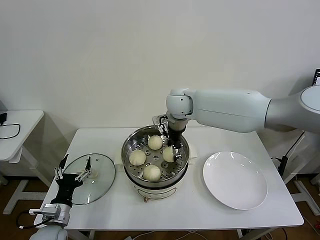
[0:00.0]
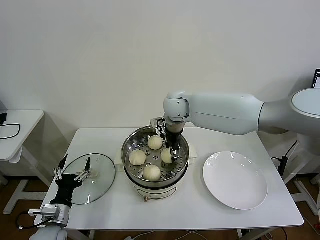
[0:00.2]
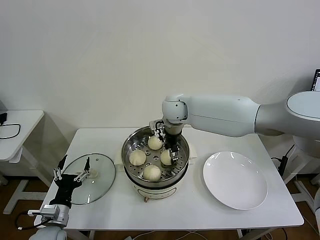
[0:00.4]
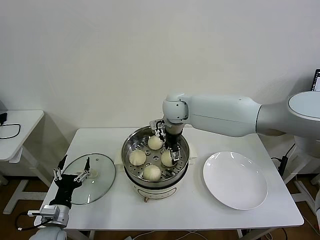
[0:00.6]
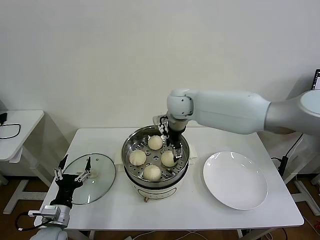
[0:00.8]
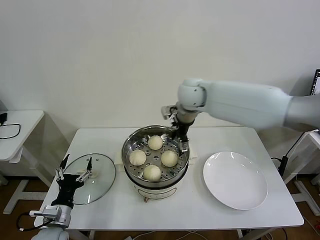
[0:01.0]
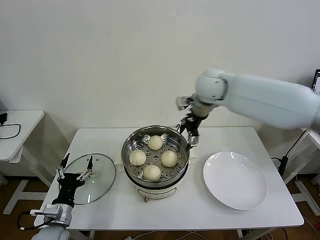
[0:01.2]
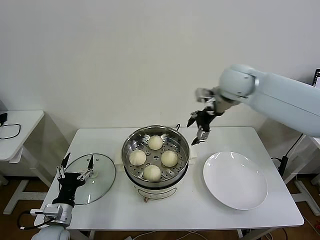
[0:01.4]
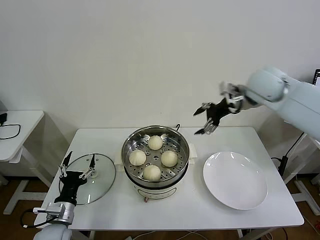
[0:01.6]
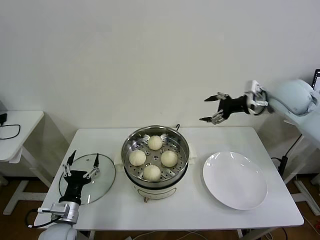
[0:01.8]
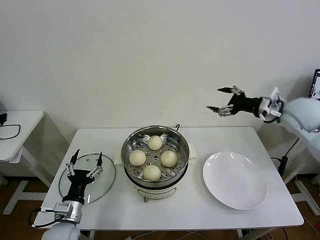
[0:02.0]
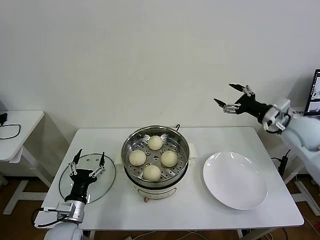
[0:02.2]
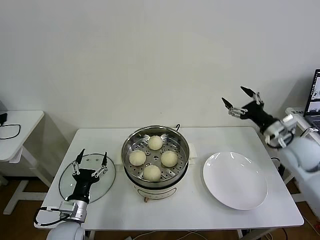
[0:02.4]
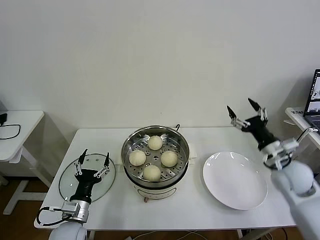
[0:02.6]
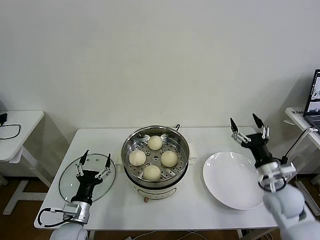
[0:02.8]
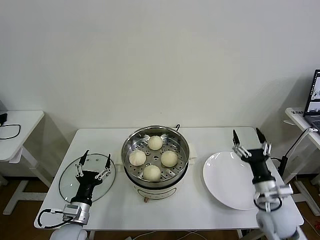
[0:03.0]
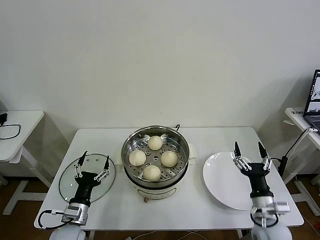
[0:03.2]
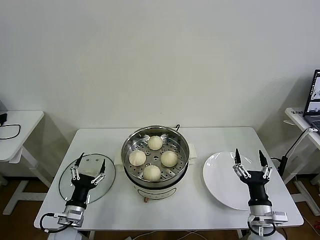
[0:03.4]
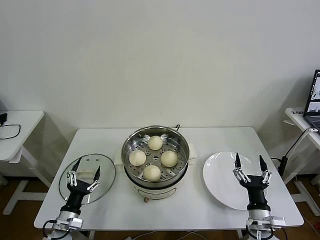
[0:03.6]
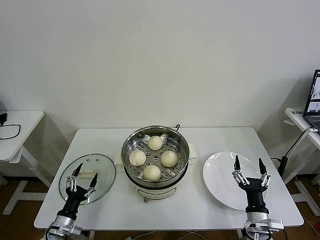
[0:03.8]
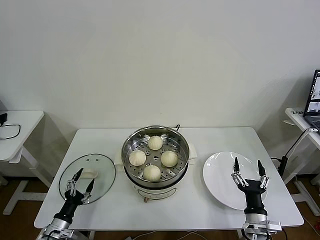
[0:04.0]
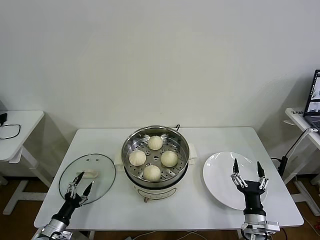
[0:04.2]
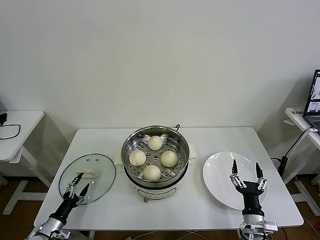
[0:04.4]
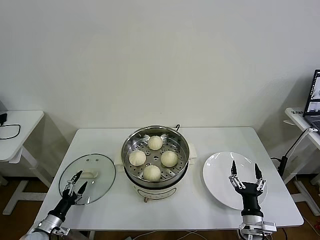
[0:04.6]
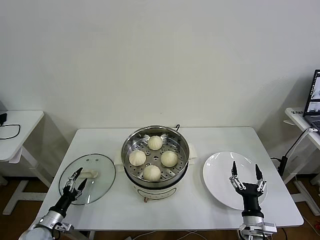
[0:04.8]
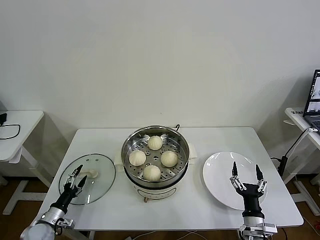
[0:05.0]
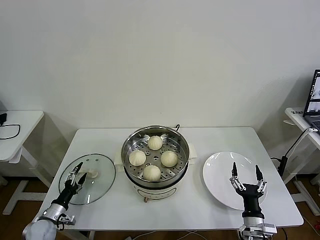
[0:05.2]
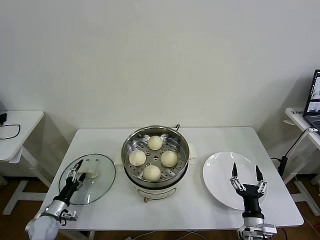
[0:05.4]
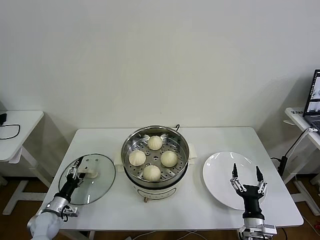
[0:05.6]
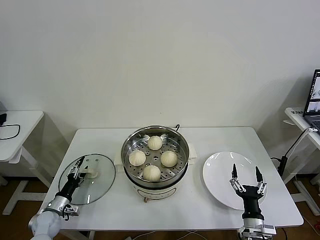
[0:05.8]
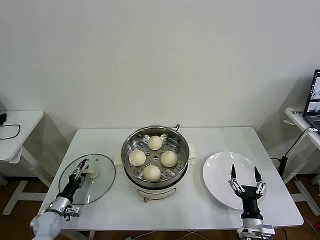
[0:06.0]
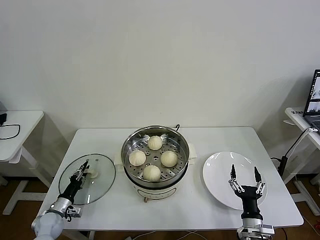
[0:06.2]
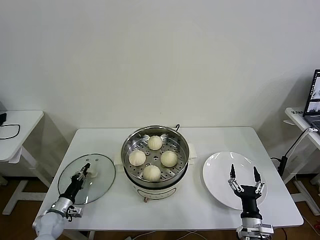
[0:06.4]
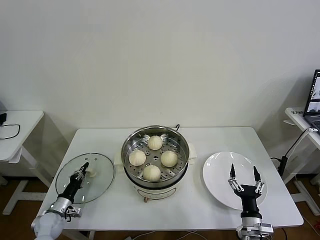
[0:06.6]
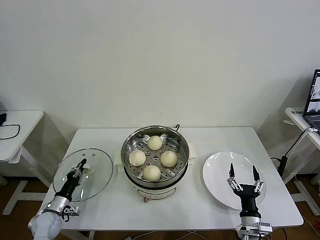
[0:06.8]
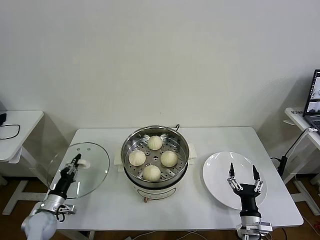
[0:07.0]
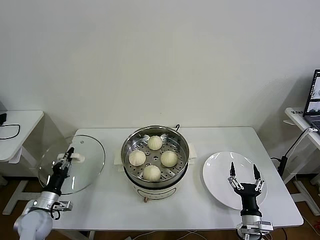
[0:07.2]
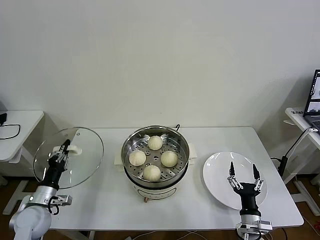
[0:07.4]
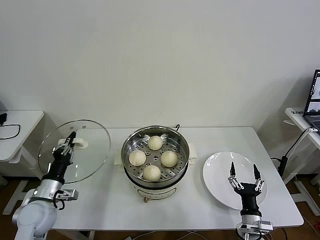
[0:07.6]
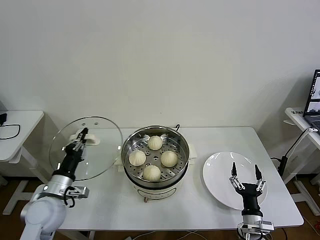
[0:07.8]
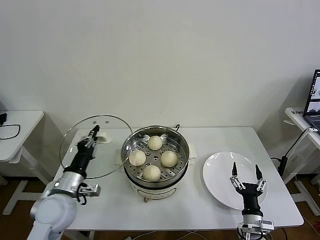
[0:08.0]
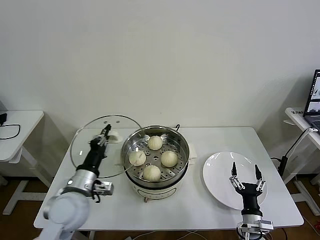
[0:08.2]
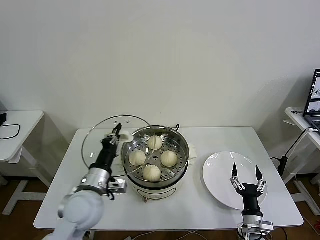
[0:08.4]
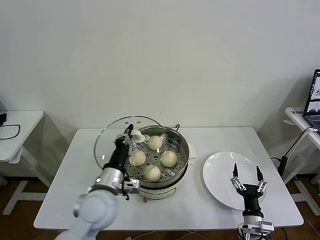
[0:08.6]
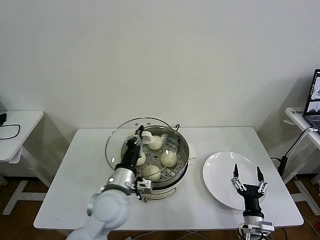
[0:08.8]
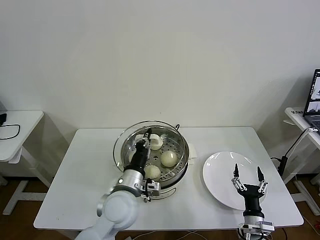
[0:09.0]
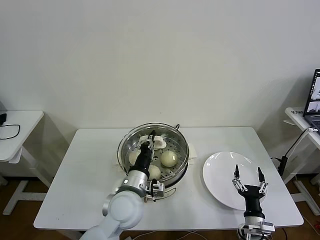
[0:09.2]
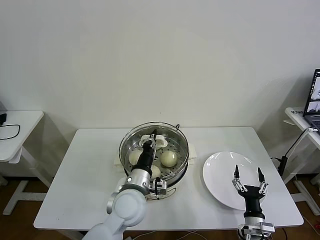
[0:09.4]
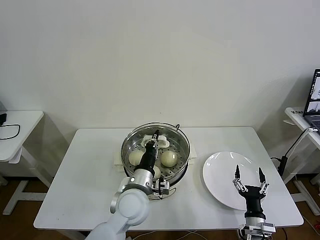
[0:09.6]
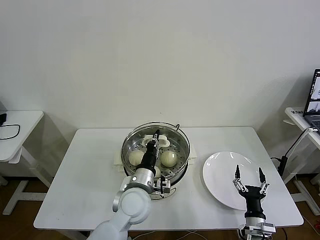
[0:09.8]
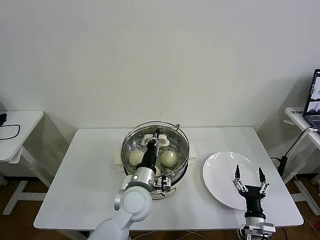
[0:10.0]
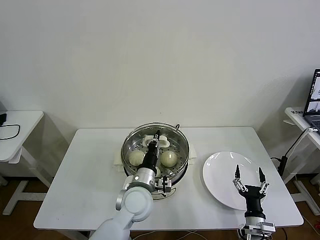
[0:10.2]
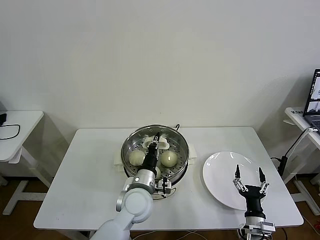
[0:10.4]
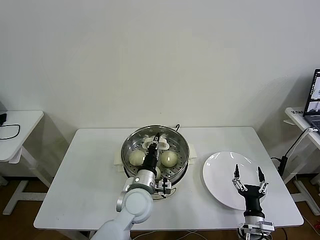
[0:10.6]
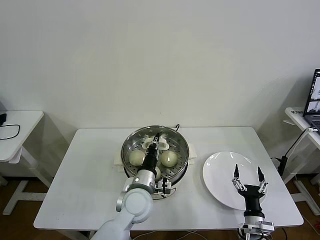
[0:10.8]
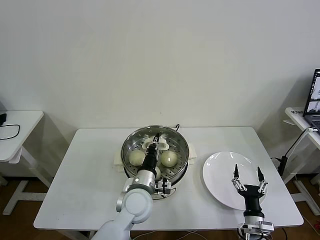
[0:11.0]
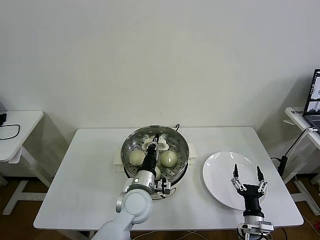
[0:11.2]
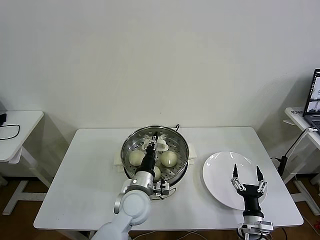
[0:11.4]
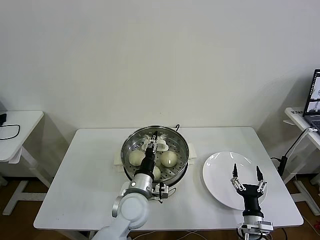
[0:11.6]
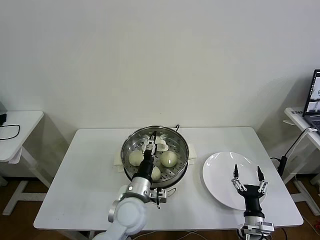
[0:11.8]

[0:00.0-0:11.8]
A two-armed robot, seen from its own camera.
Task of the whole recording: take steamed baozi put them in steamer then cover it.
Step, 0:01.2 to 0:06.6: Grasp the pot lid with left gripper.
0:00.0 to 0:01.4: The right gripper moves to the right and upward, some 20 cm, and opens its fingers.
0:01.4 to 0:03.0: The right gripper heads downward, backward and to the right, covering some 40 cm.
0:03.0 to 0:04.4: The right gripper is displaced downward and backward by roughly 10 cm; the left gripper shifts roughly 20 cm to the left and downward.
0:04.4 to 0:06.0: The left gripper goes about 10 cm forward.
0:06.0 to 0:07.4: The left gripper shifts about 15 cm upward, and closes up.
0:07.4 to 0:08.8: The left gripper travels to the right and upward by about 30 cm.
0:08.8 to 0:10.4: The left gripper heads to the right and downward, covering approximately 10 cm.
0:10.4 to 0:11.8: The left gripper opens.

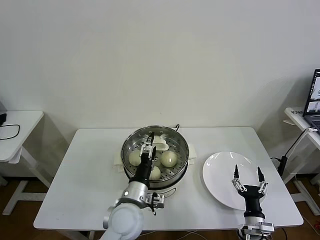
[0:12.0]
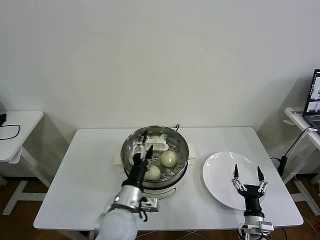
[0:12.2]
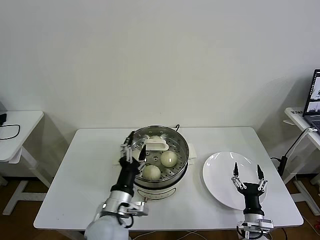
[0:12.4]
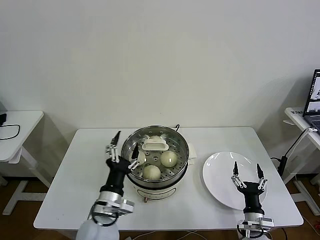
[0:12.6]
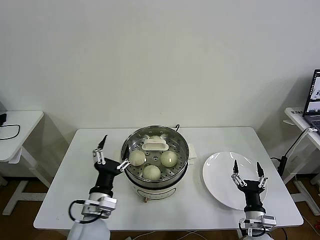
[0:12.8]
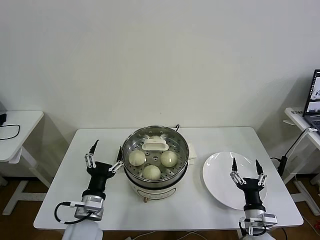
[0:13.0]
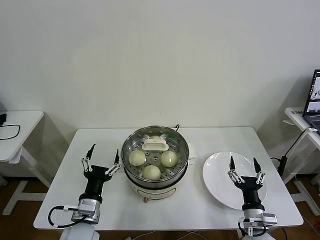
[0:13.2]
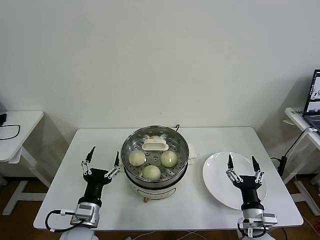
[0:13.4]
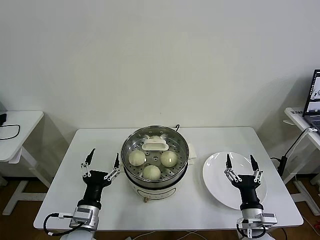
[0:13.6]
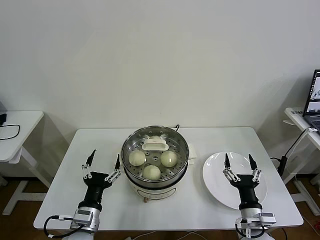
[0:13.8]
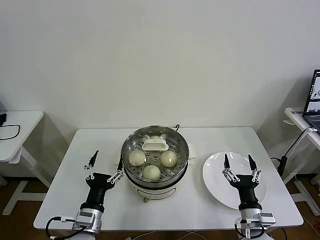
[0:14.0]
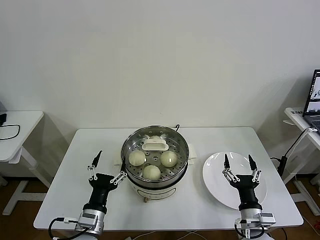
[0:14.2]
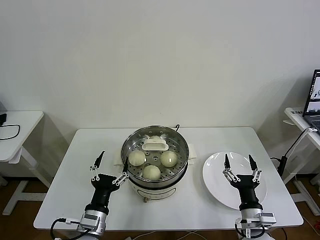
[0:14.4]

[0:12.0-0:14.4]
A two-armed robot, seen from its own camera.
Task of the whole recording: take steamed baozi put them in steamer then cover it.
0:12.0 to 0:13.2: The right gripper goes roughly 5 cm upward, while the left gripper shifts about 15 cm to the left and backward.
0:13.2 to 0:14.4: The grippers make only small movements.
